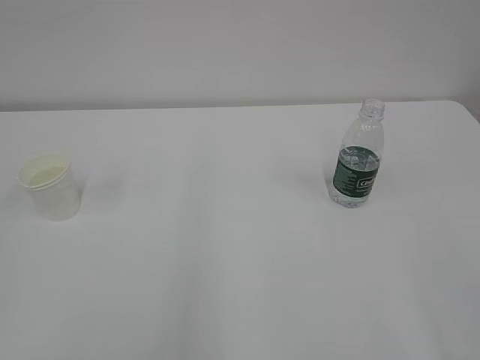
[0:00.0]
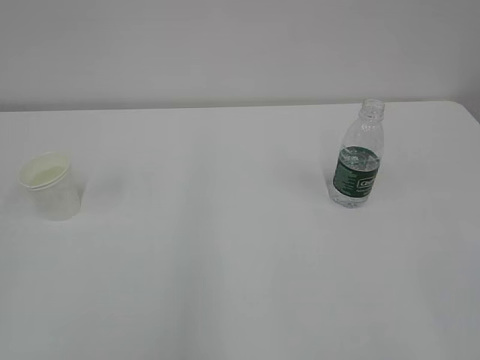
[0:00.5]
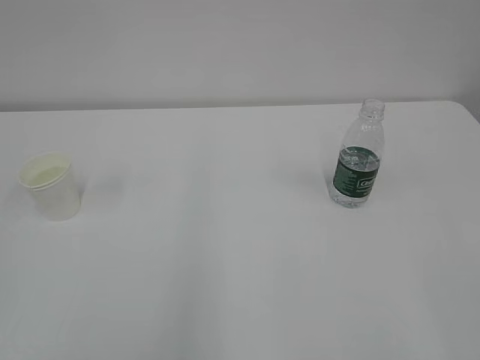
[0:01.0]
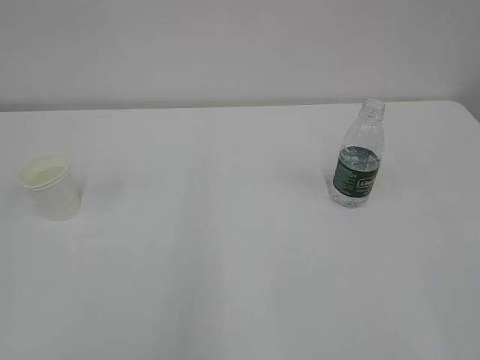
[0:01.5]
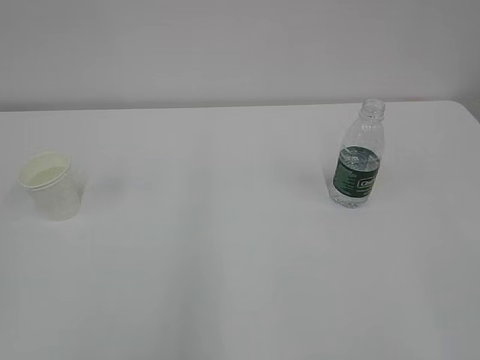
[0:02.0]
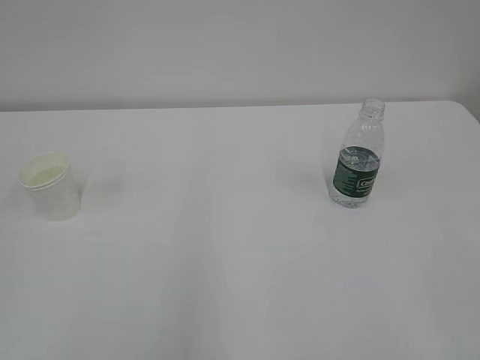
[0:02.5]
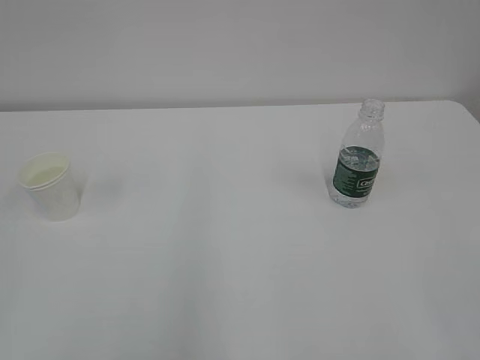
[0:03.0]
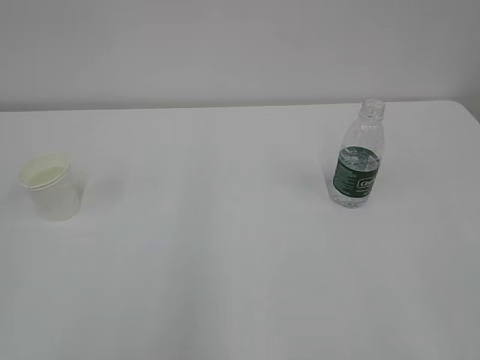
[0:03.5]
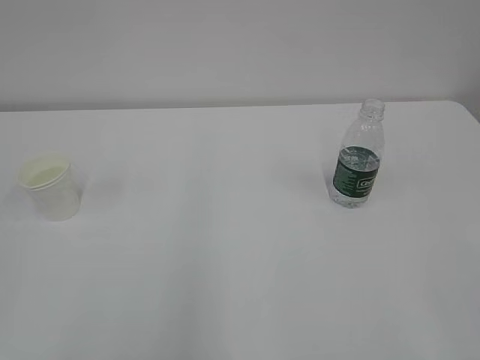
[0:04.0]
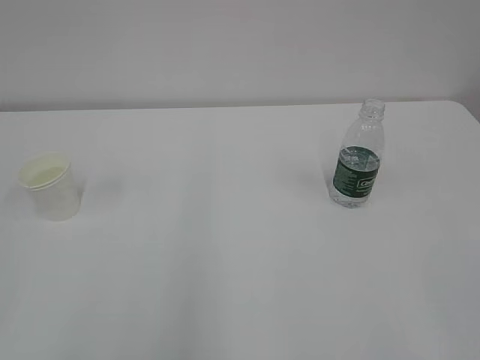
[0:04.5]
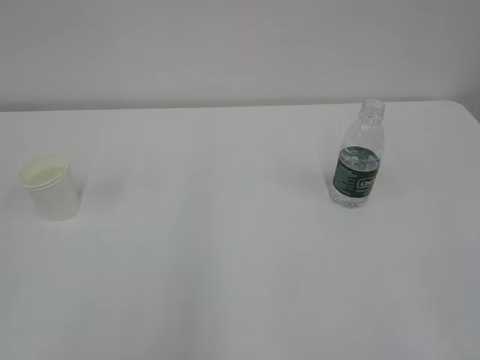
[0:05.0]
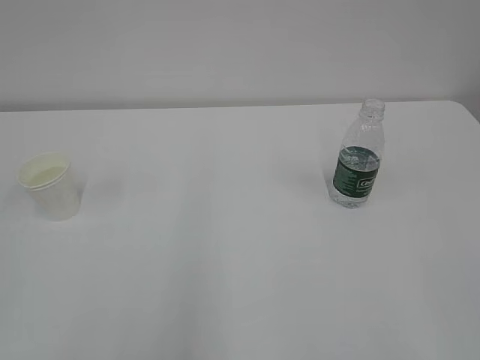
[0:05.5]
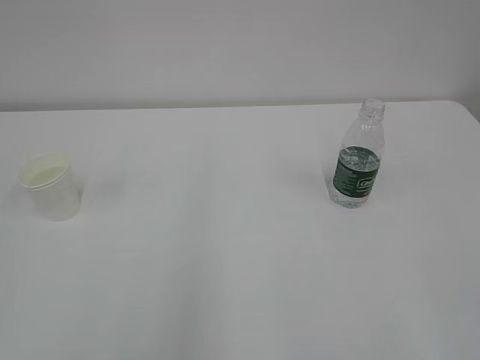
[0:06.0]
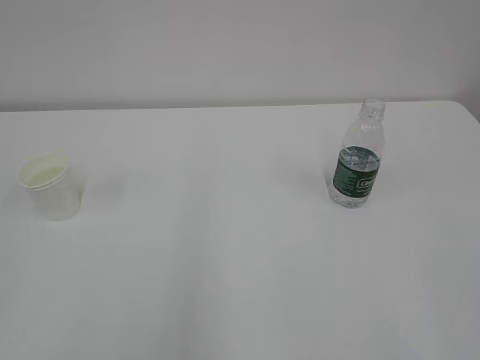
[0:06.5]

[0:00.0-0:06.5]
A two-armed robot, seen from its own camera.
4.5 to 6.5 s: The two grippers keep their place.

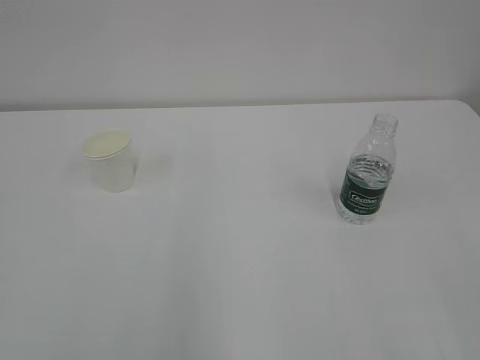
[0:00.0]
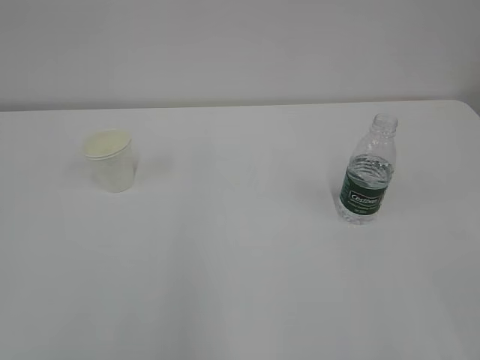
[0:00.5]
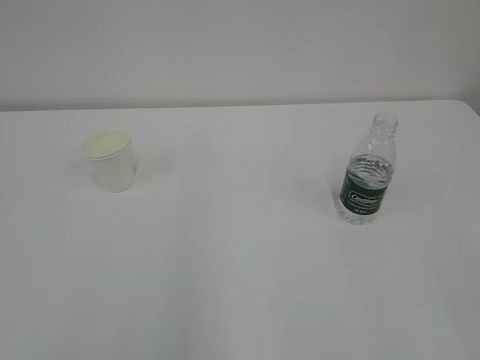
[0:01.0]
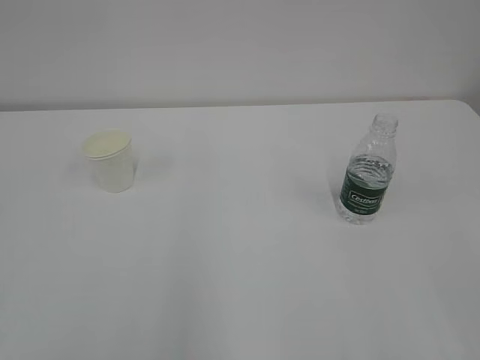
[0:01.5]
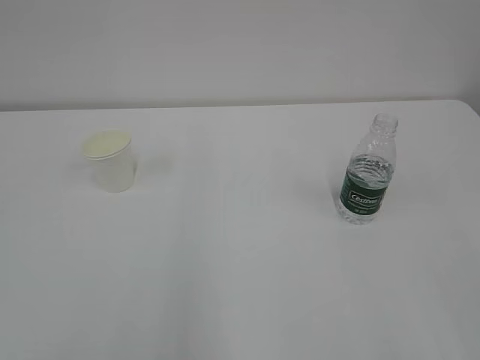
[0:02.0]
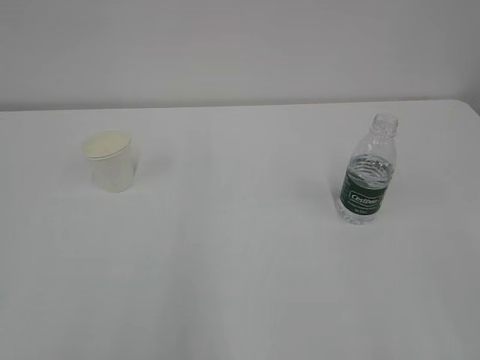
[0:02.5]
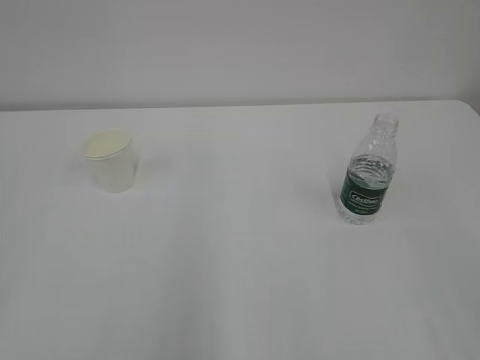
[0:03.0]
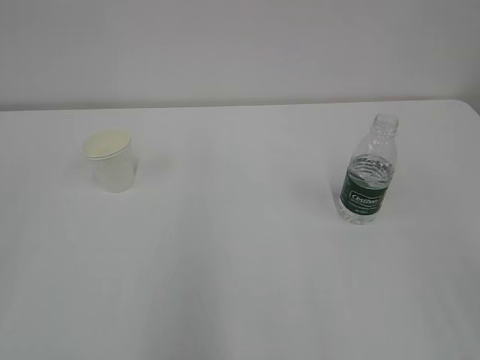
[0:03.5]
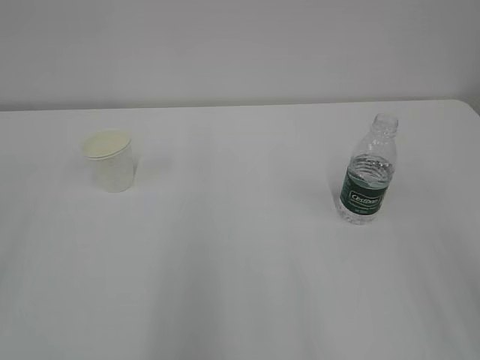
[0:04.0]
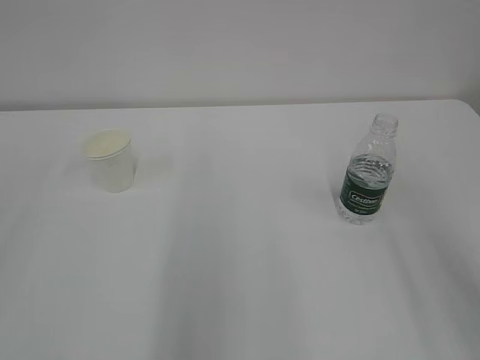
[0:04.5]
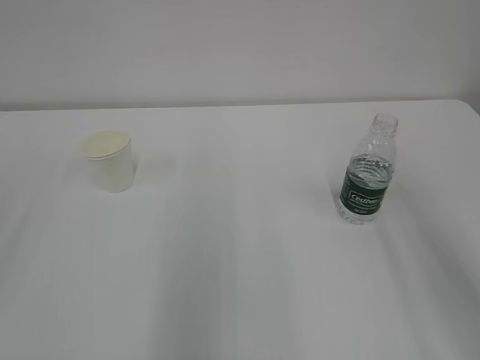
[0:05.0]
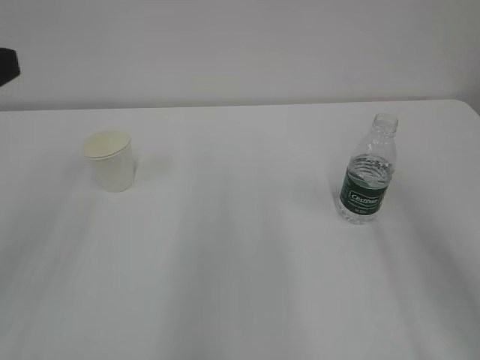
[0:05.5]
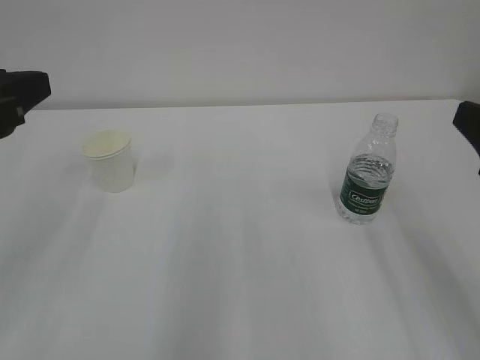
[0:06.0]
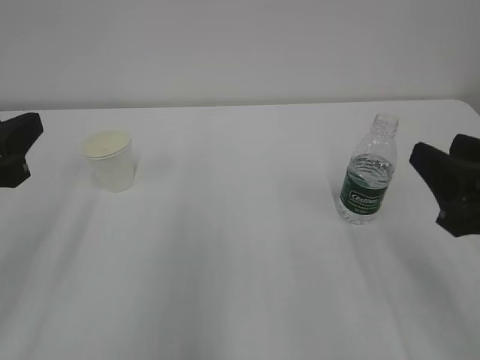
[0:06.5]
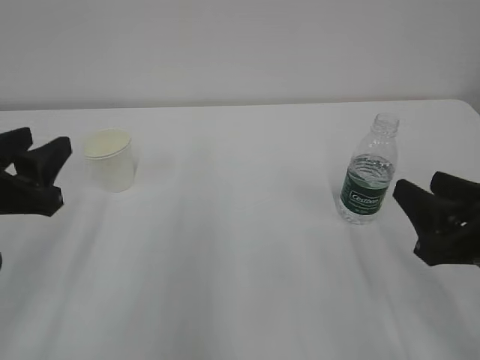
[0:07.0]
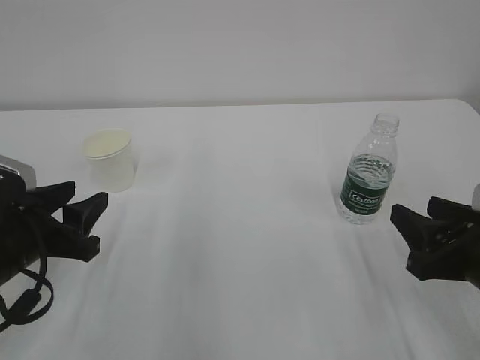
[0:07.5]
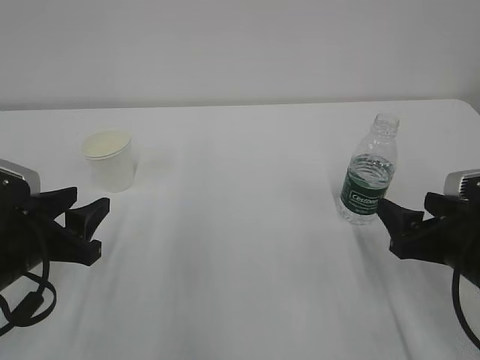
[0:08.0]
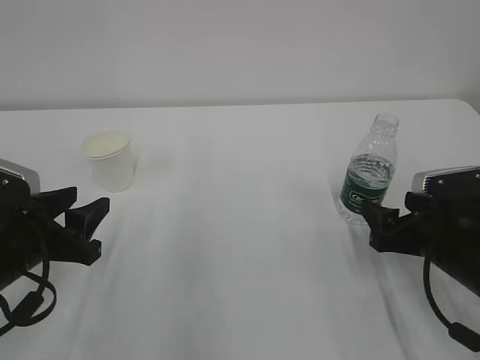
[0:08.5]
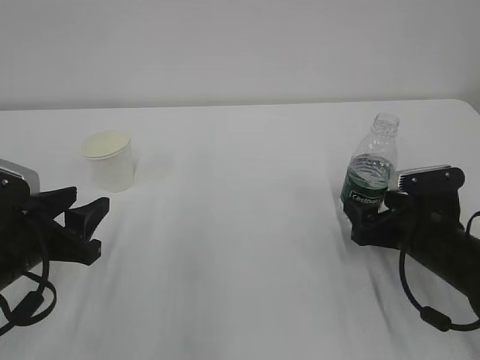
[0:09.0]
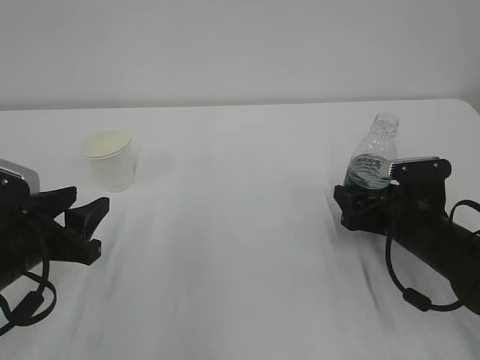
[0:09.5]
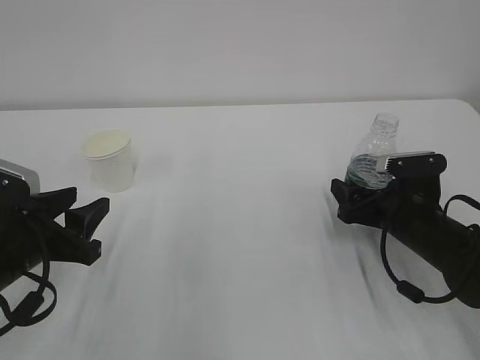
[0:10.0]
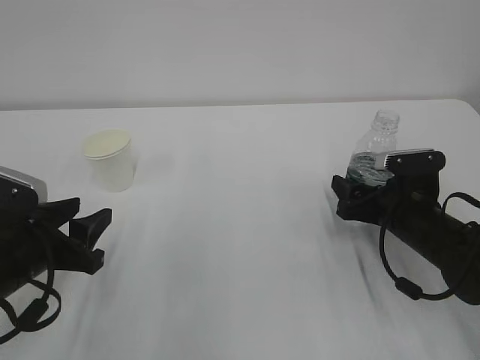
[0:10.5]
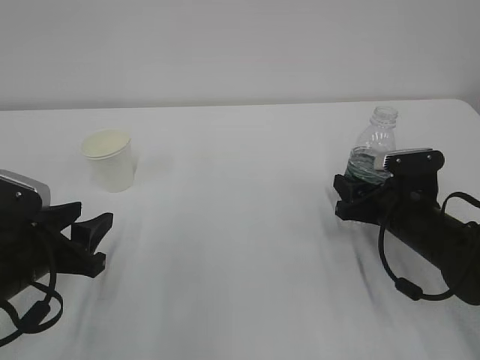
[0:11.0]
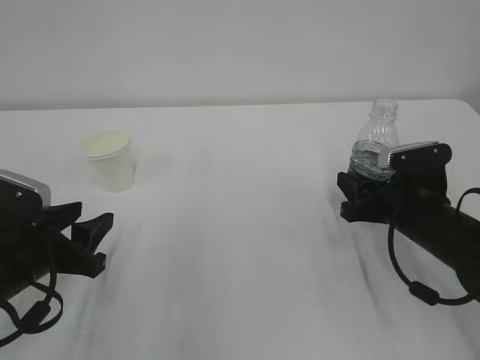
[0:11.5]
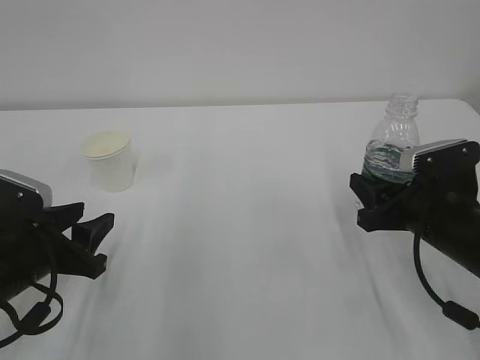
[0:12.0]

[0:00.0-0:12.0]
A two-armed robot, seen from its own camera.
4.0 to 6.0 s: The right gripper goes some 15 cm forward and downward, while the left gripper goes some 15 cm forward and to the right.
6.0 to 8.0 s: Both grippers travel together downward, roughly 15 cm. The right gripper opens.
8.0 to 10.0 s: The right gripper travels forward and downward by some 10 cm.
10.0 to 12.0 s: The right gripper heads upward, covering about 5 cm, and closes.

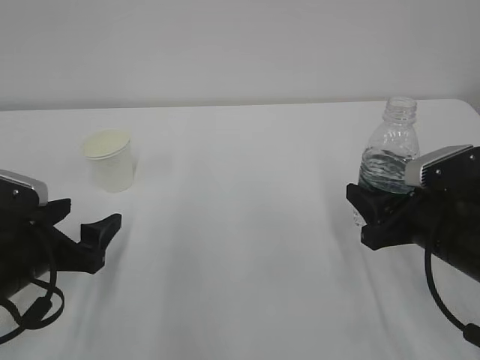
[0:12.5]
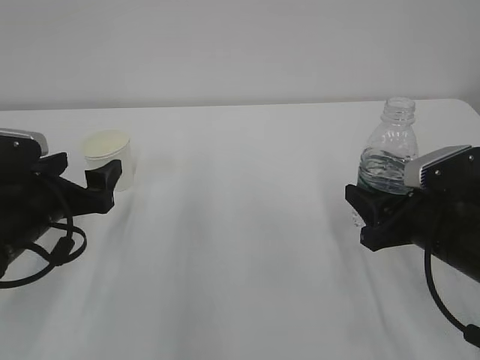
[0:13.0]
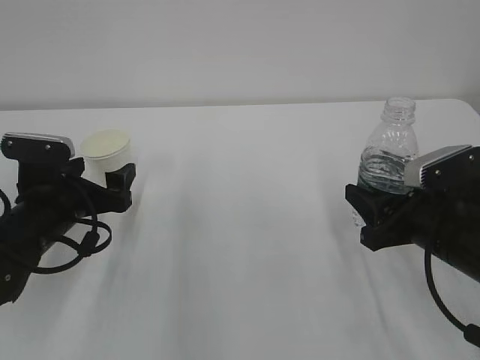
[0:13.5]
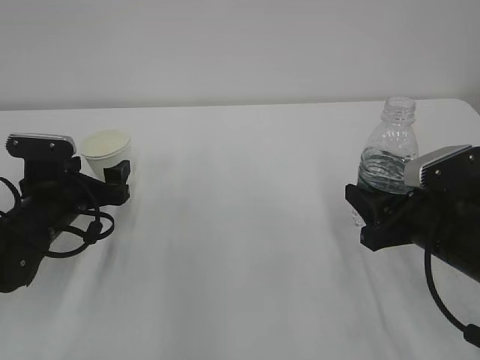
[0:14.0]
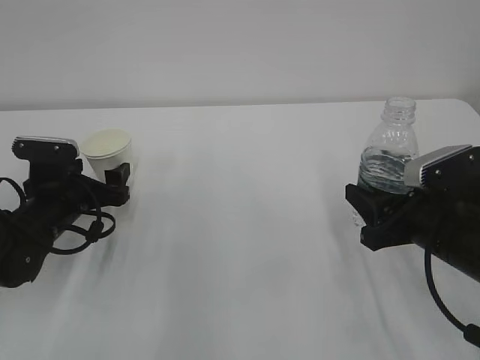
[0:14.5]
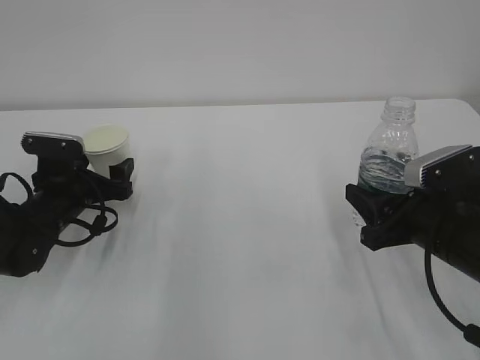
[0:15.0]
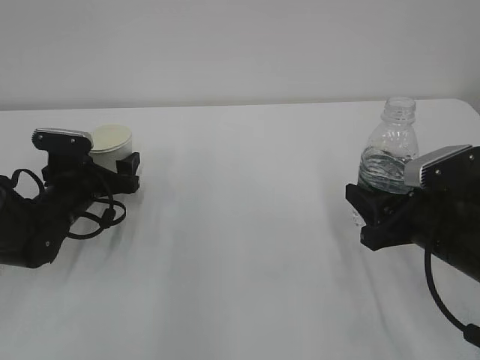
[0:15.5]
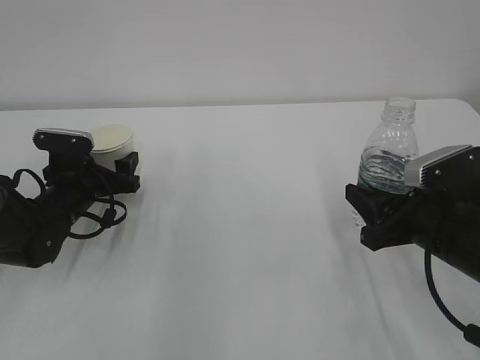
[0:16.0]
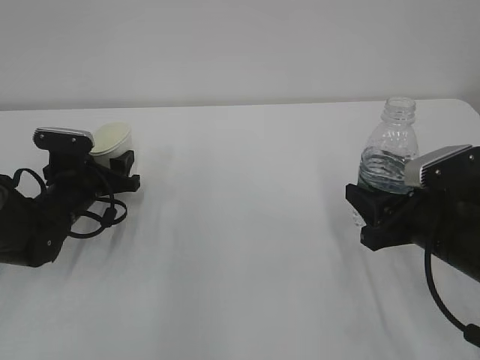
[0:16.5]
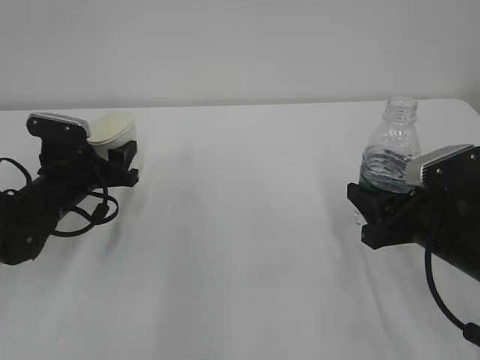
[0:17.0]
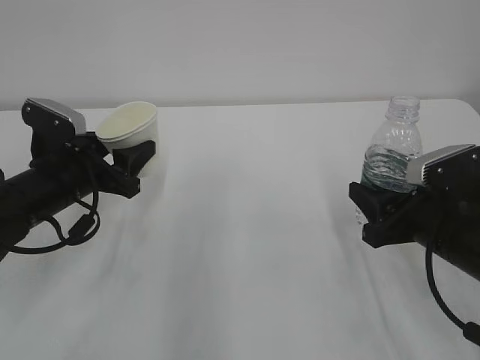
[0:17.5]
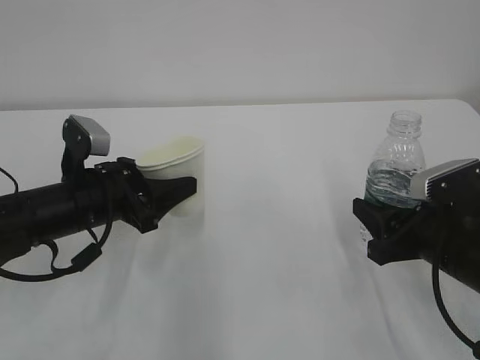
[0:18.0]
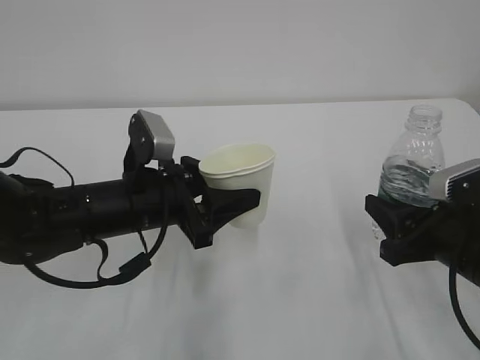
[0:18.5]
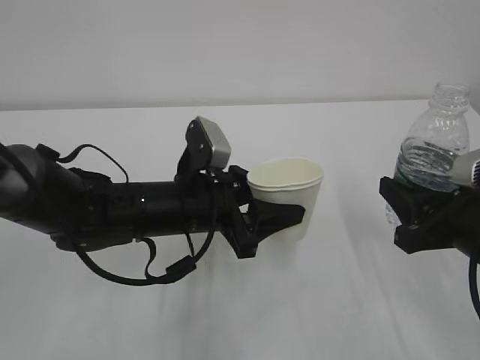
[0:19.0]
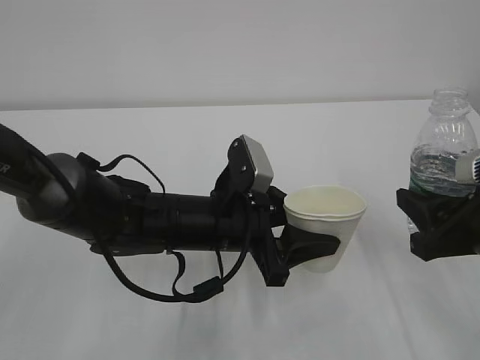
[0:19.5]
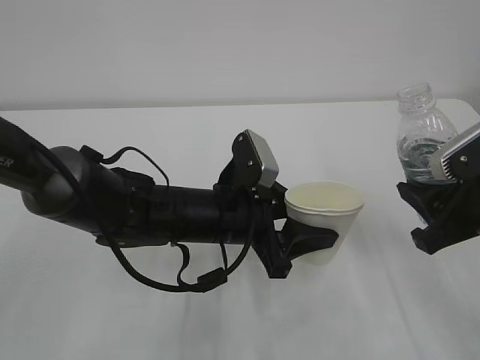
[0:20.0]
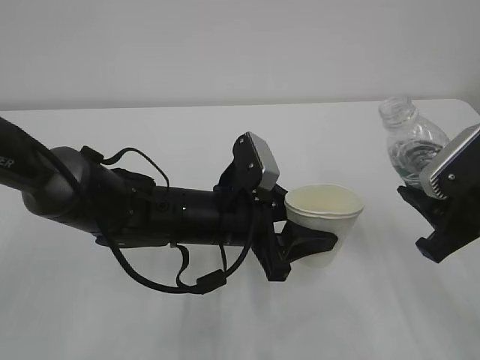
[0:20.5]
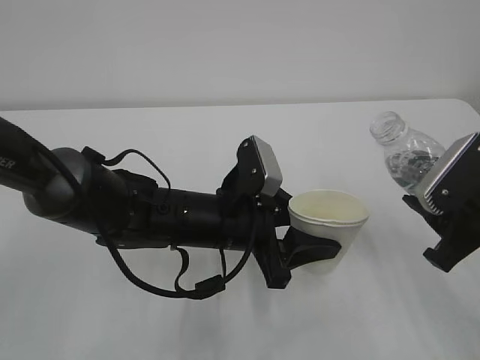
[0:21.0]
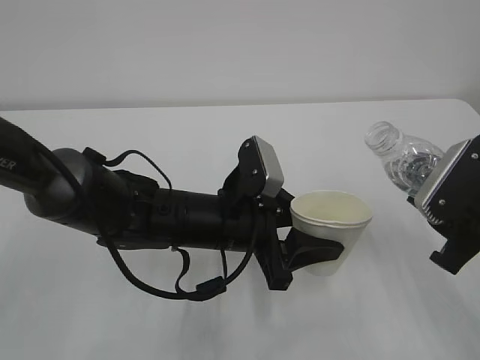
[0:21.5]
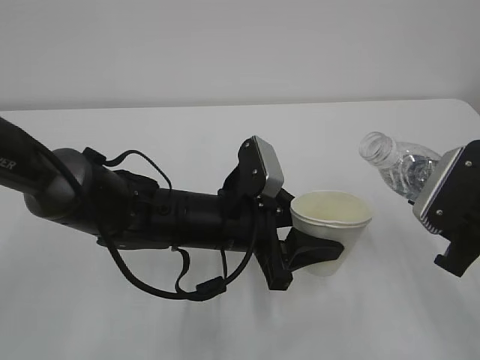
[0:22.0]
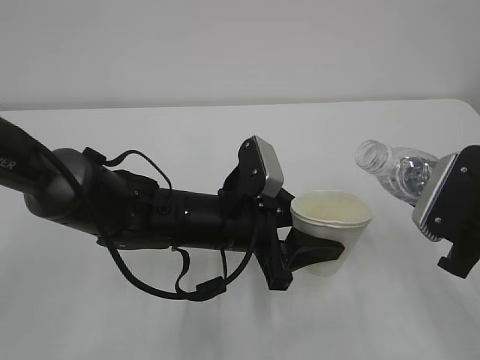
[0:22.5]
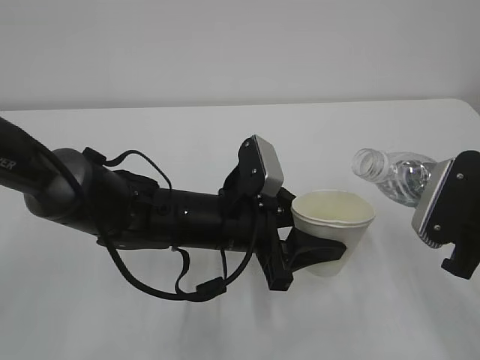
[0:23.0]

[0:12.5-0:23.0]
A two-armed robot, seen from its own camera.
12.5 to 14.5 s: The left gripper goes approximately 10 cm forward.
14.5 to 16.5 s: The left gripper closes.
16.5 to 19.0 s: The right gripper ends up about 5 cm from where it was, while the left gripper goes approximately 20 cm to the right, backward and upward.
21.0 to 23.0 s: The grippers make only small movements.
